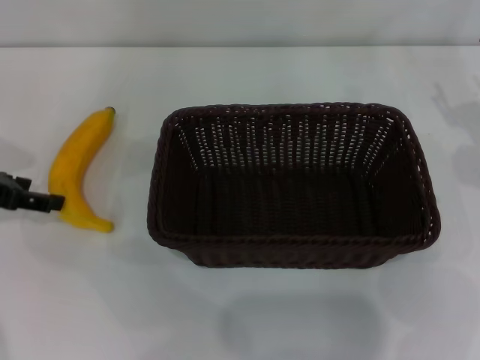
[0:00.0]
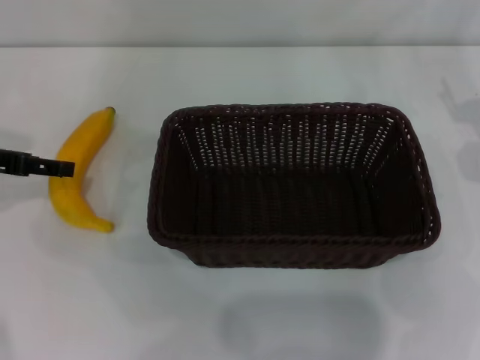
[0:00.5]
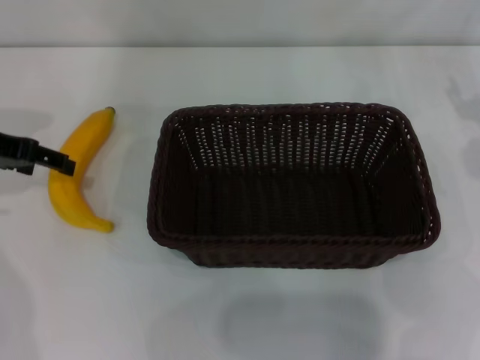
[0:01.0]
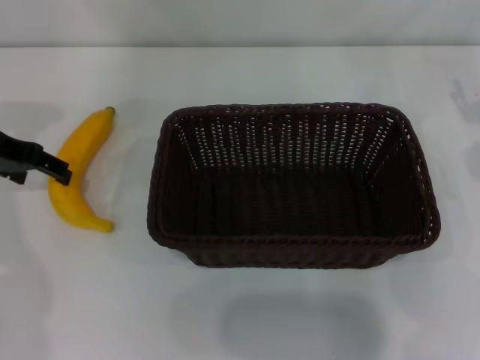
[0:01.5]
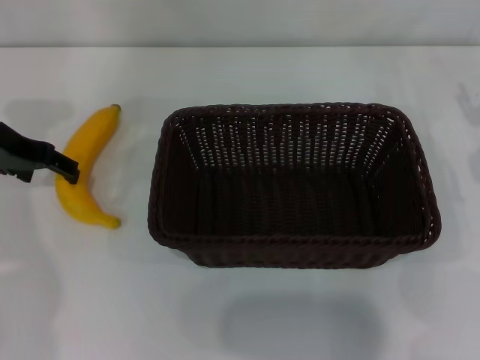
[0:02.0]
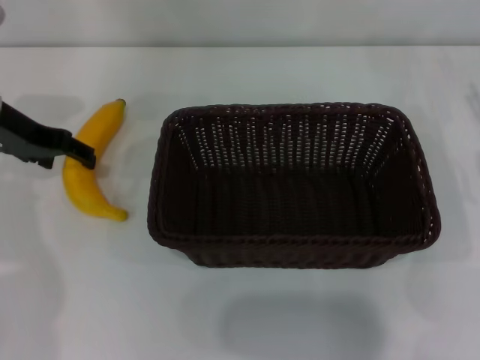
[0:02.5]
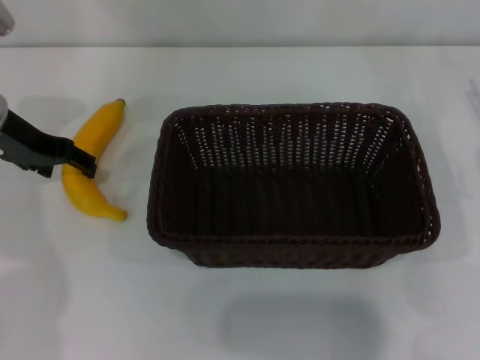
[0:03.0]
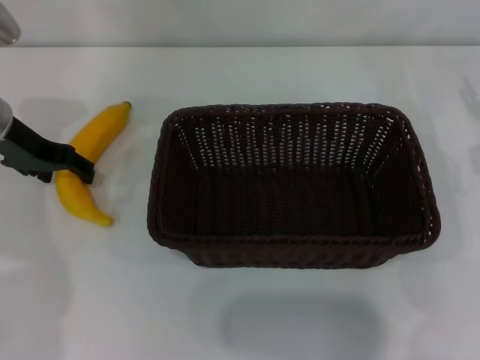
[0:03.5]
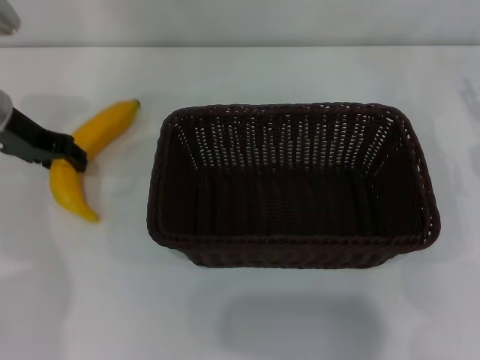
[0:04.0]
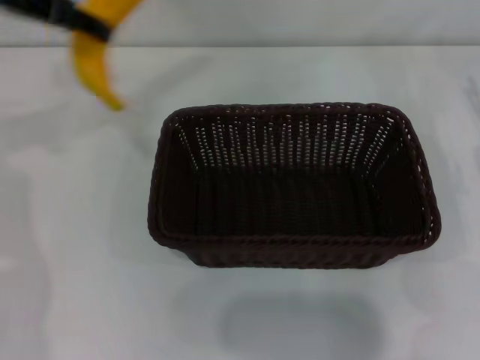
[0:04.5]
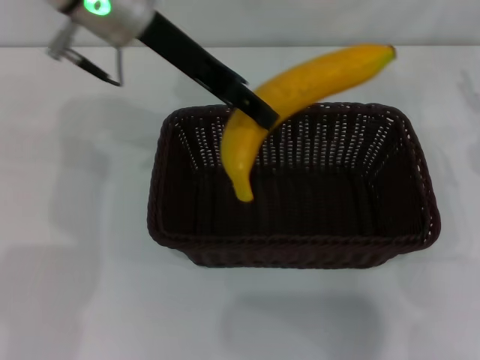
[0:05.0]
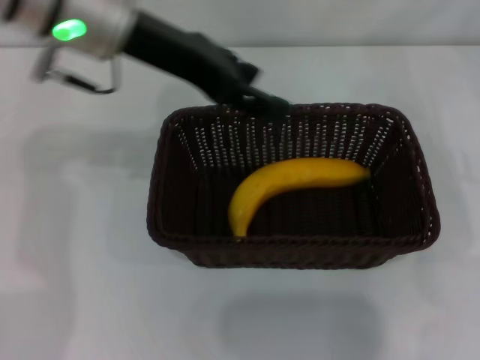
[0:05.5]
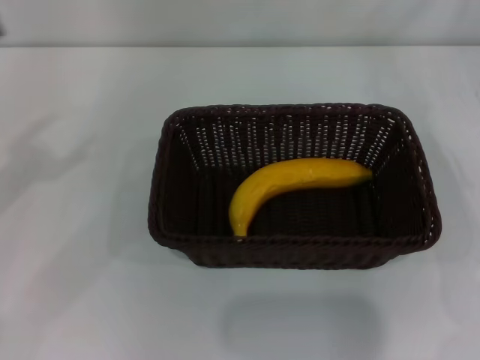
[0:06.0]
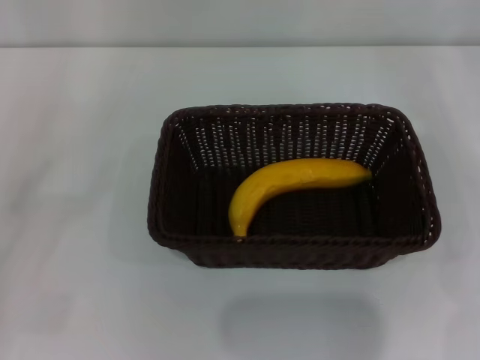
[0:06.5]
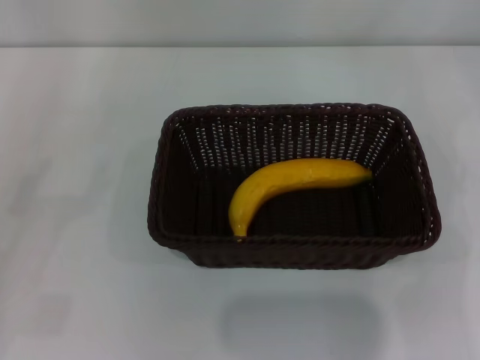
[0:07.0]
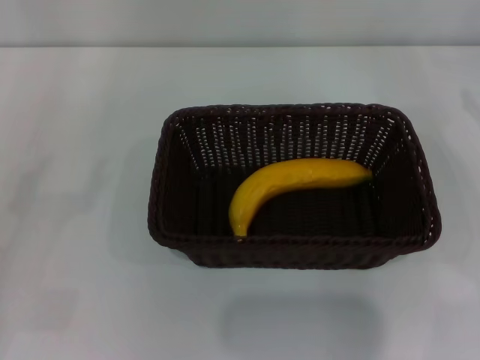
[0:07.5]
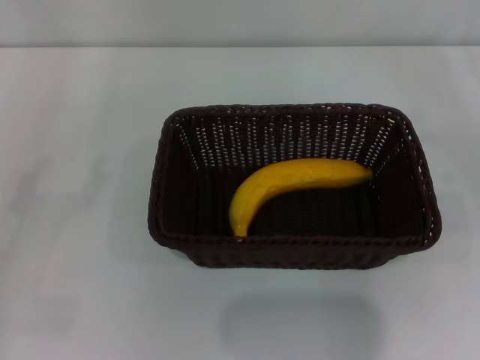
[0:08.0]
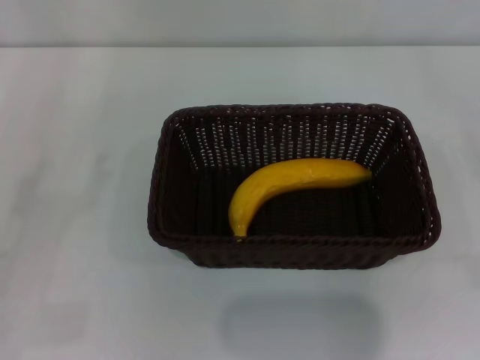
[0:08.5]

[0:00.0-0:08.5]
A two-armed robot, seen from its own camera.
Step, 0:00.0 to 0:04.0: Pick up the banana with the left gripper.
Step, 0:04.5 to 0:05.0: Place the banana into the dark basket with the left gripper.
0:00.0 to 0:02.0: The left gripper moves to the right and forward, roughly 10 cm.
0:02.0 to 0:04.0: The left gripper closes.
0:04.0 to 0:06.5: The left gripper heads backward and to the left, covering approximately 25 cm, and opens, while the right gripper ends up approximately 5 cm from where it was.
